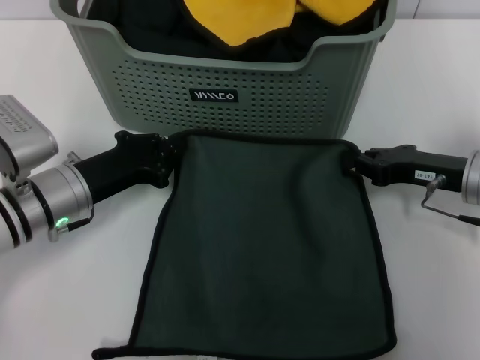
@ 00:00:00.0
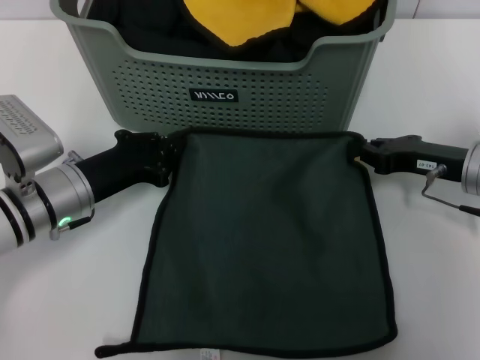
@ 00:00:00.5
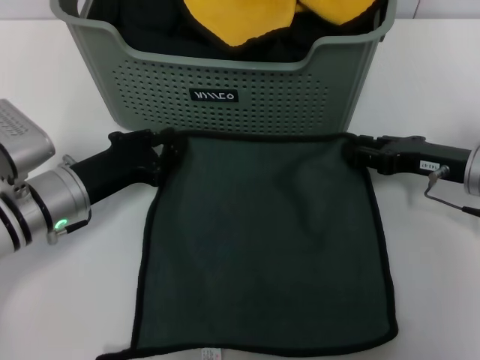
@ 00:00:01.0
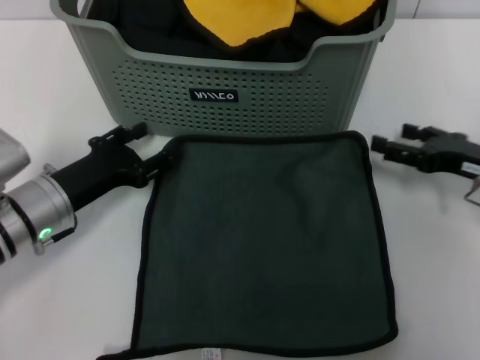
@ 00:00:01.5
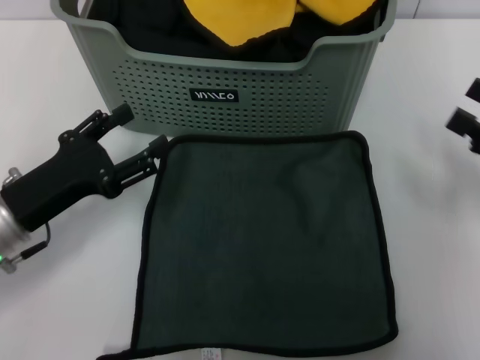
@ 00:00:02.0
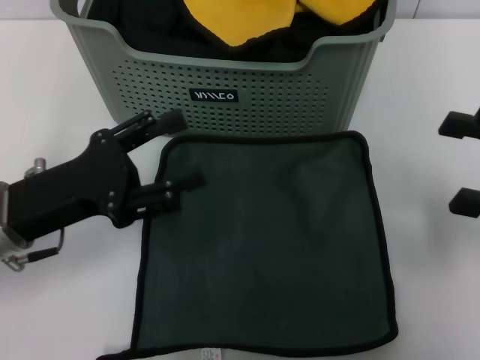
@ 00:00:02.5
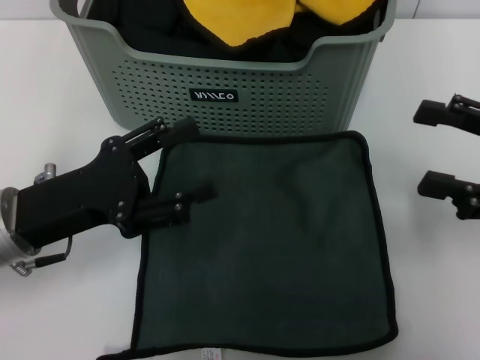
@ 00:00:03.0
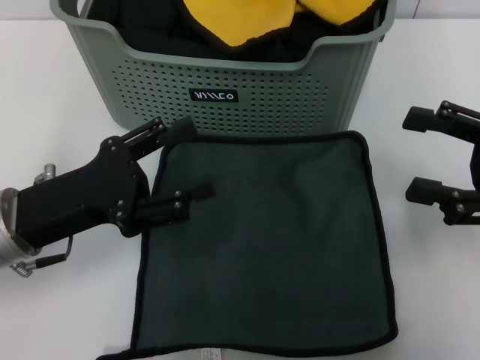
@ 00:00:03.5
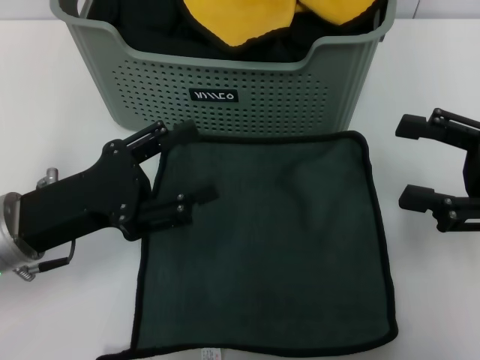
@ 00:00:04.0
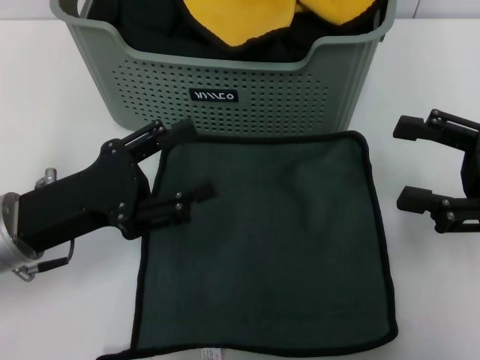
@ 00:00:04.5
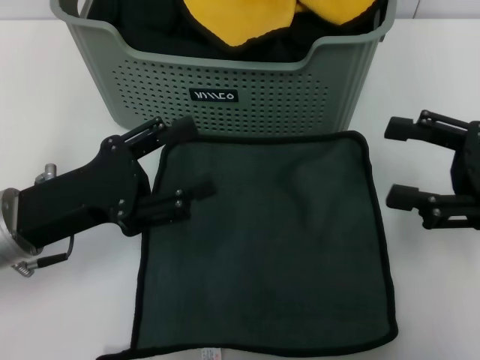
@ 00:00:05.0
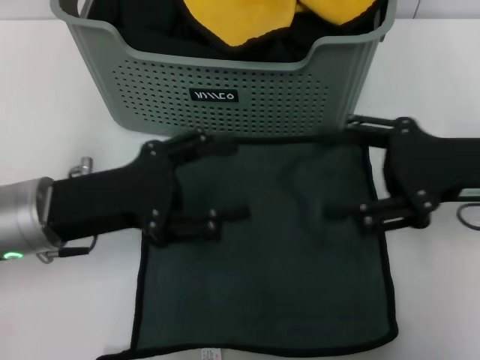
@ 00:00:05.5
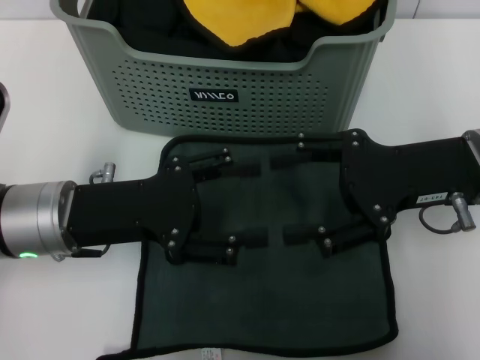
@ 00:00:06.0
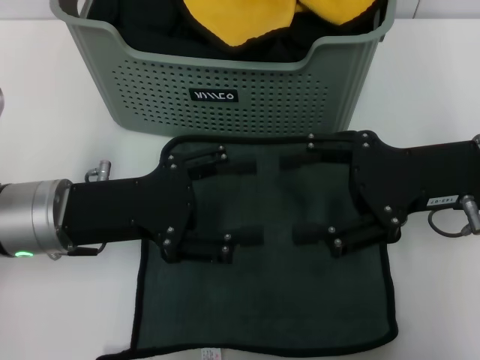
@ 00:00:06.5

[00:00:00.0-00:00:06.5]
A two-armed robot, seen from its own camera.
Task of the whole recording: pick up the towel from the storage box and lay it flat on the table.
00:00:00.0 to 00:00:02.0: The right gripper heads to the right, backward and upward, covering about 15 cm, and opens up, while the left gripper is displaced backward by roughly 5 cm, and opens up.
00:00:04.5 to 00:00:06.5: The right gripper shifts roughly 10 cm to the left.
